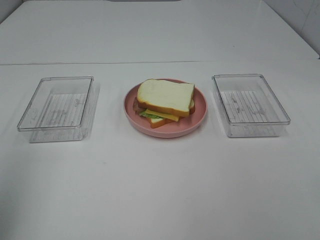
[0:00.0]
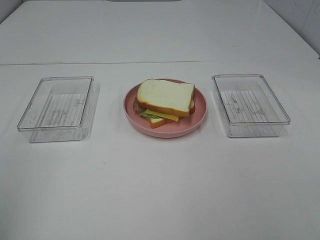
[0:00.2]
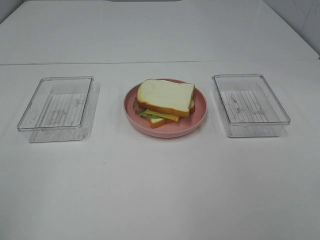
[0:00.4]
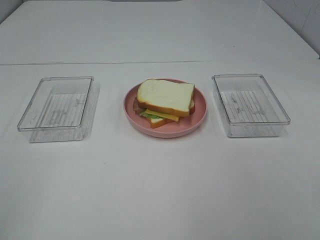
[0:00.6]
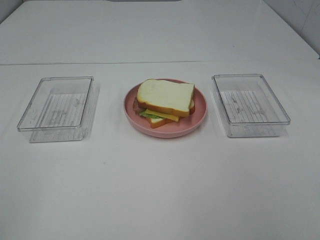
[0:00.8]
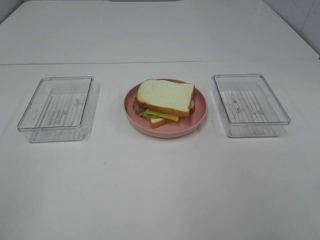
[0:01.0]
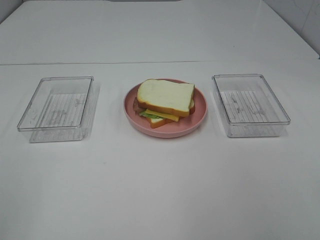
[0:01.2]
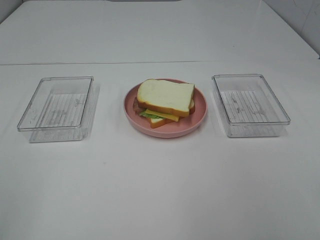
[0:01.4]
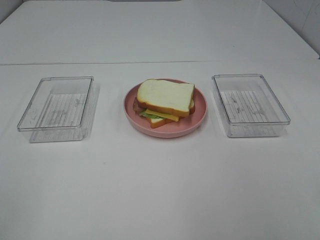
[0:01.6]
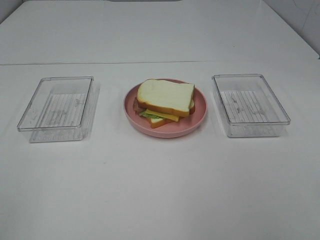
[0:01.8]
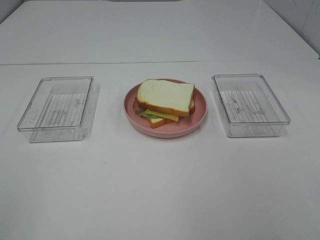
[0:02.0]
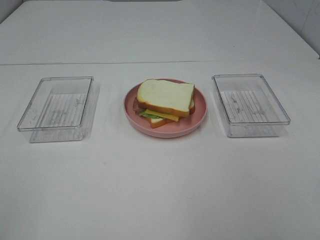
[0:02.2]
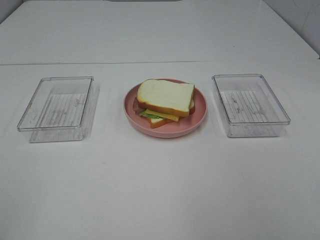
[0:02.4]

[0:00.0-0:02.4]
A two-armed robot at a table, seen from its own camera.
Task of the whole recording: Make sandwiches.
0:00.0 to 0:01.2: The left gripper shifts some 15 cm backward and downward.
